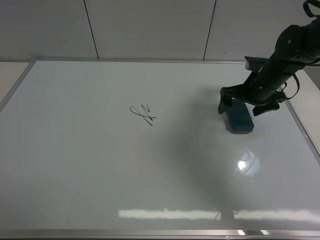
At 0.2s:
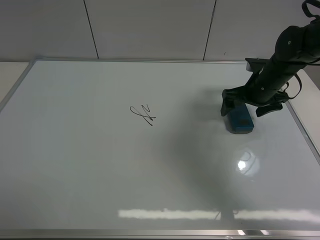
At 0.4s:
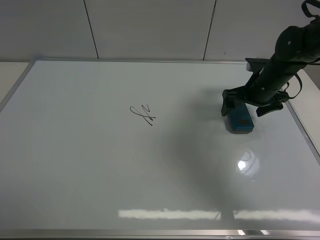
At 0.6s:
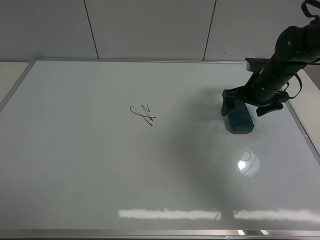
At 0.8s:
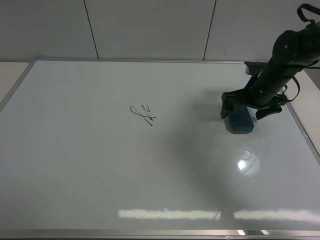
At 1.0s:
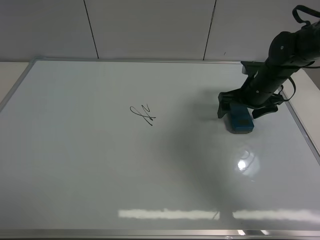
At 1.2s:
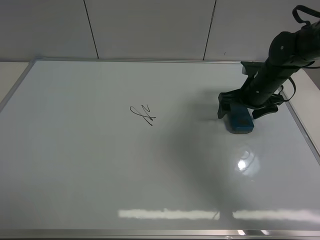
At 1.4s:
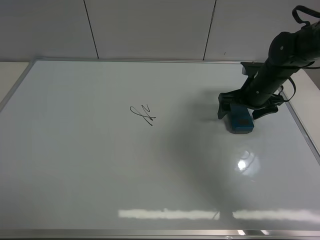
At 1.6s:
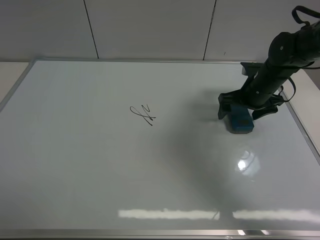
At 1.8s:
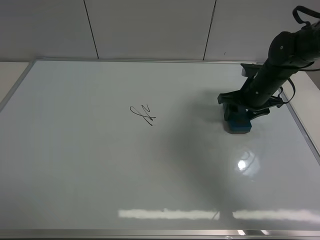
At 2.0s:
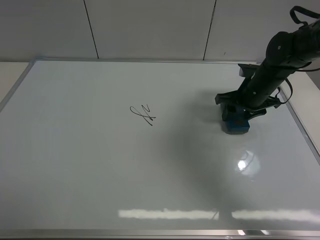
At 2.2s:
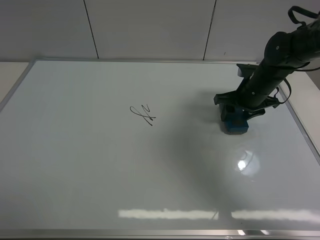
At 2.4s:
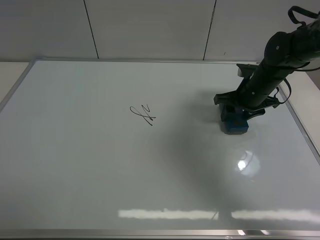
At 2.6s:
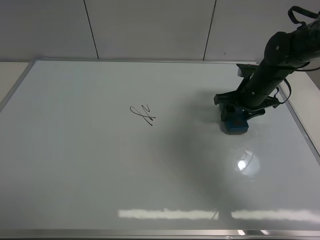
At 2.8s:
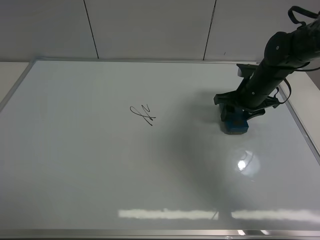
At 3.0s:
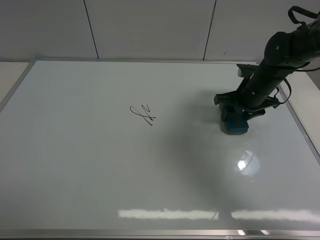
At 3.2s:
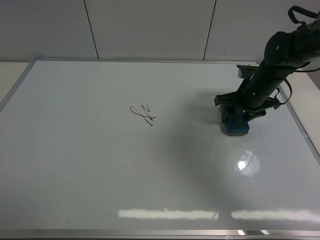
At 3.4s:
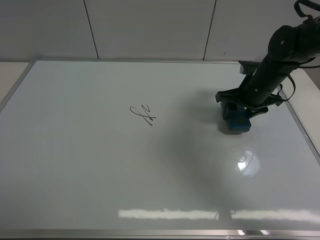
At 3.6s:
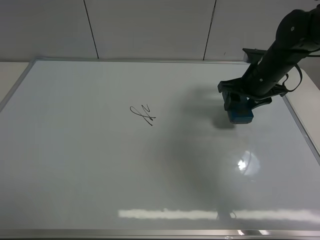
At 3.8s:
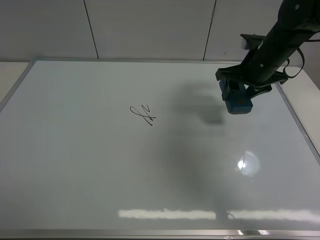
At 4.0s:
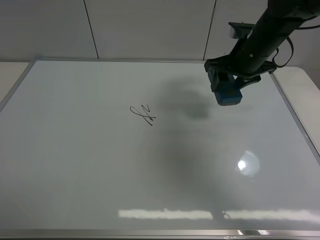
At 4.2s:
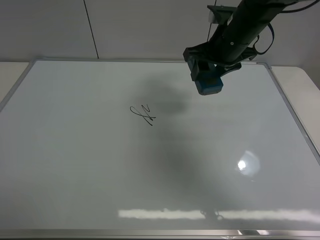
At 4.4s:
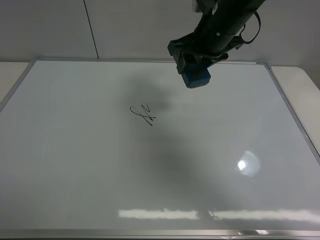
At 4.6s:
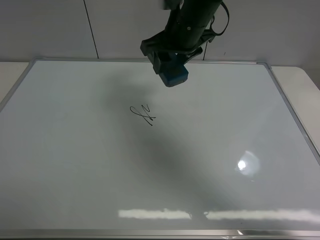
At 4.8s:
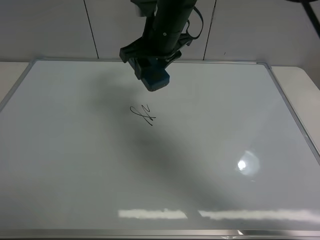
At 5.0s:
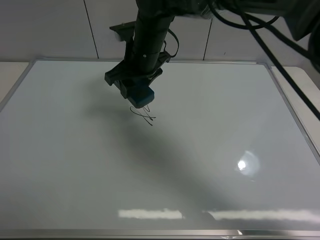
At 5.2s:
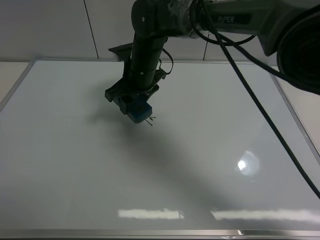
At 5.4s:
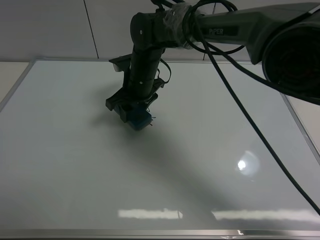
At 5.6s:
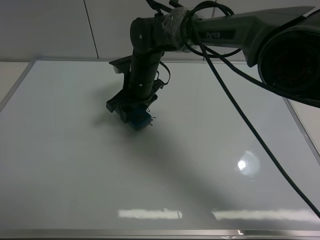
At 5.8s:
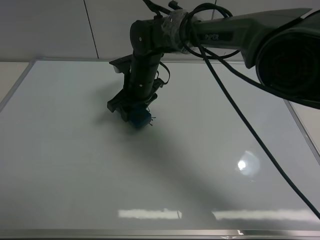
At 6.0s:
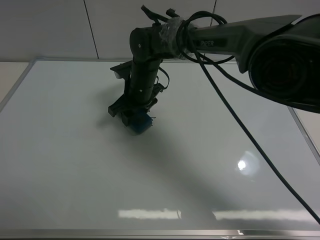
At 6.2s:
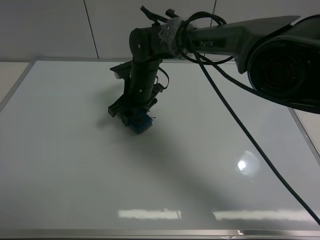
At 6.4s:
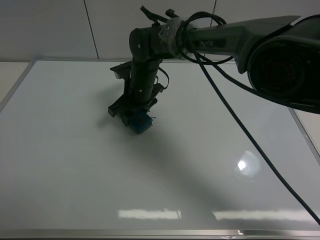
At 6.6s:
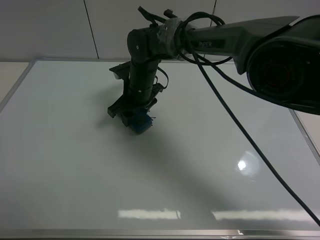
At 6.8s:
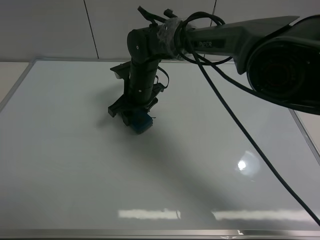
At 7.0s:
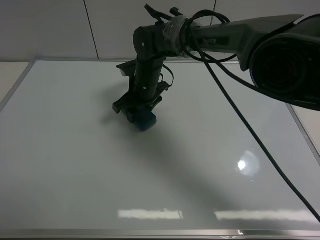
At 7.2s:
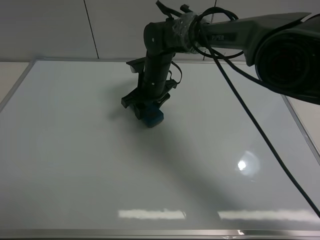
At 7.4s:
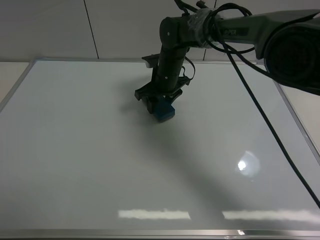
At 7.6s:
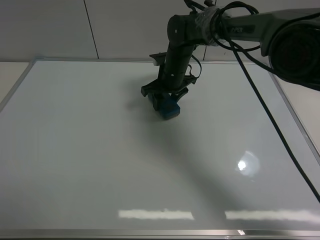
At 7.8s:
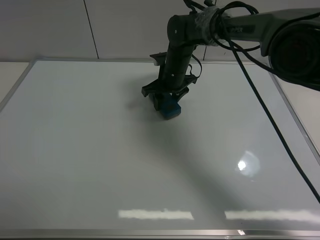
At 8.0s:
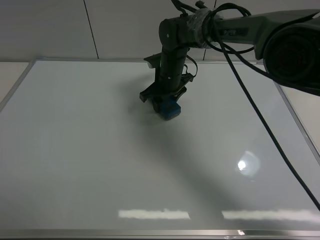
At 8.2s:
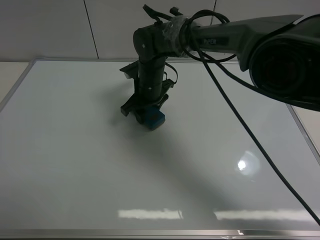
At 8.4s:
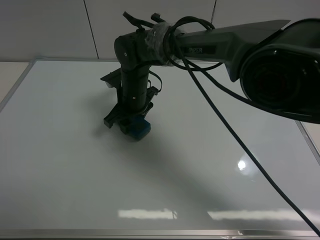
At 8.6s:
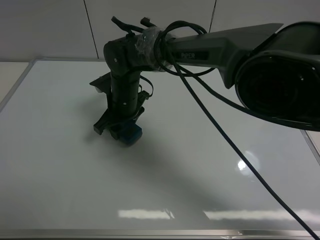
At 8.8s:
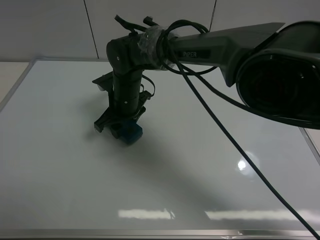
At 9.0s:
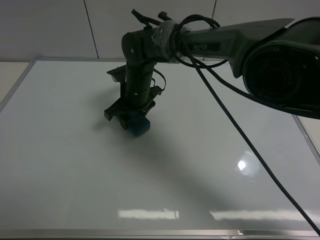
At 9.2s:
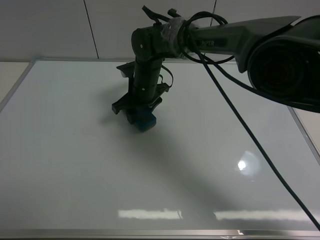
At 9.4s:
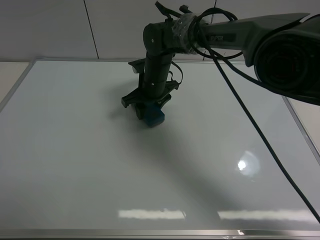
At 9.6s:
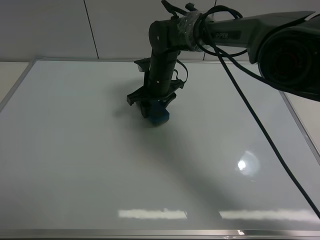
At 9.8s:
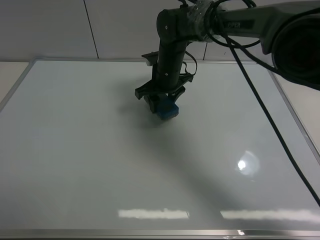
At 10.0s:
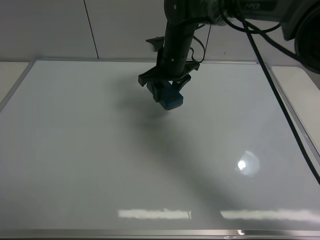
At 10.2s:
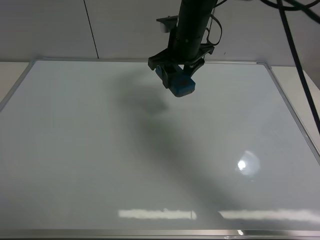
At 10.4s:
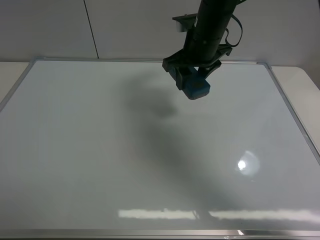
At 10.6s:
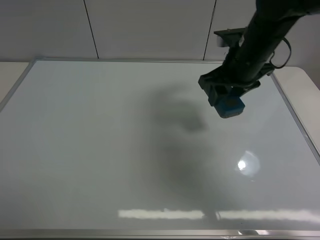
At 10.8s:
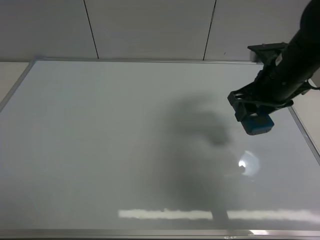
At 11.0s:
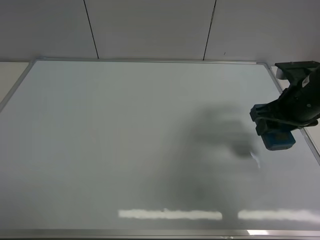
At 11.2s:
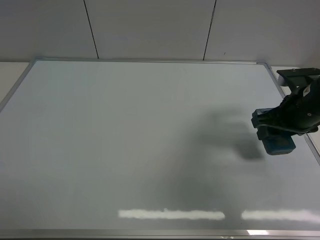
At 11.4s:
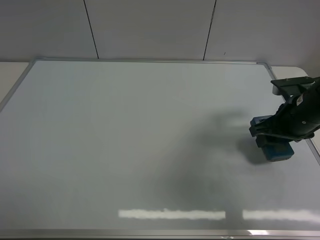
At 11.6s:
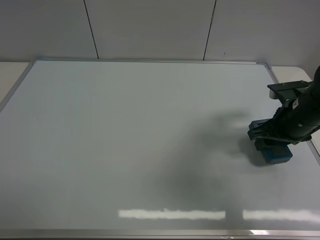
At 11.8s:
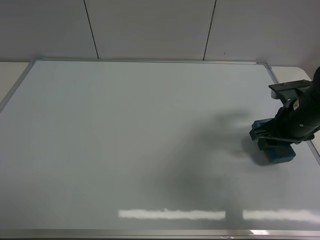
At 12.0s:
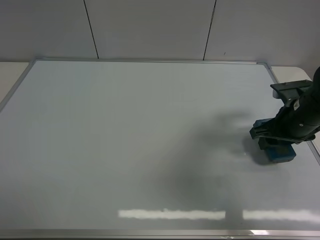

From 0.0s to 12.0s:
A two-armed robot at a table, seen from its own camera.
Task of the whole recording: use the right gripper to pick up the board eraser, wipe the notes on the whiteboard clean, and then put them back in place.
Step, from 0.0s to 3.4s: Pick up the board eraser with right gripper.
Step, from 3.6s to 9.4s: Wipe off the writing on the board with right gripper.
From 0.0s to 1.6s: Both grippers stay about where they are.
From 1.6s to 3.0s: The right gripper closes.
From 3.0s to 4.4s: The right gripper is displaced upward and to the left by about 20 cm.
From 4.4s to 6.0s: The right gripper shifts about 20 cm downward and to the left.
From 6.0s to 7.6s: The right gripper moves to the right and forward, some 10 cm.
From 7.6s to 9.0s: The right gripper moves to the left and backward, roughly 10 cm.
From 9.0s to 10.4s: The right gripper heads to the right and upward, covering roughly 20 cm.
From 10.4s to 12.0s: The right gripper is displaced to the right, backward and downward by roughly 25 cm.

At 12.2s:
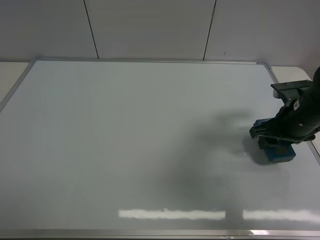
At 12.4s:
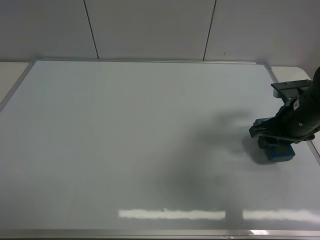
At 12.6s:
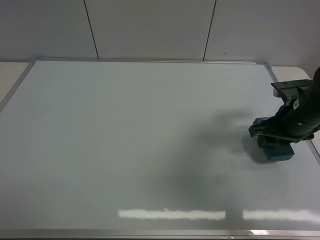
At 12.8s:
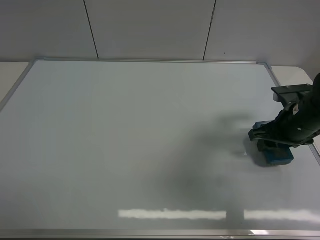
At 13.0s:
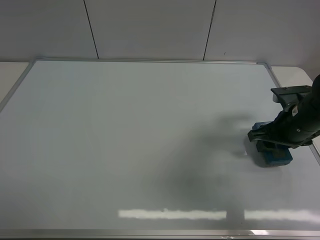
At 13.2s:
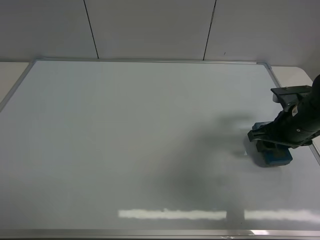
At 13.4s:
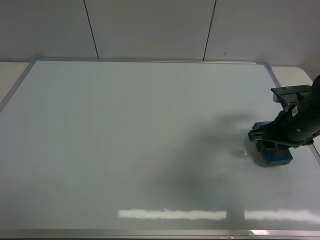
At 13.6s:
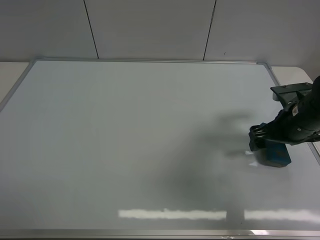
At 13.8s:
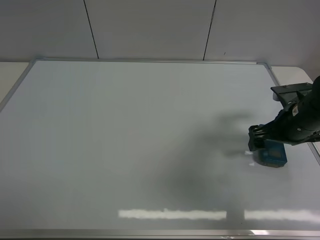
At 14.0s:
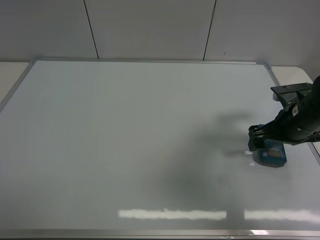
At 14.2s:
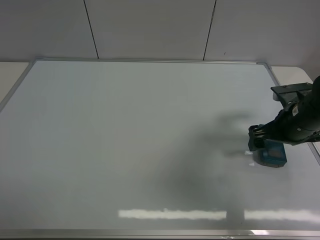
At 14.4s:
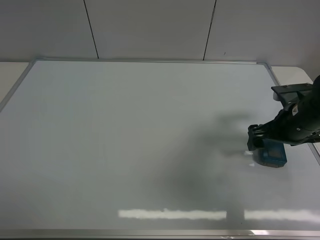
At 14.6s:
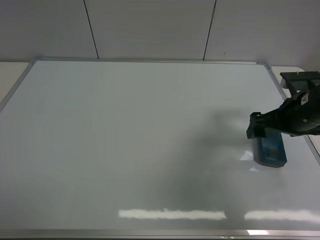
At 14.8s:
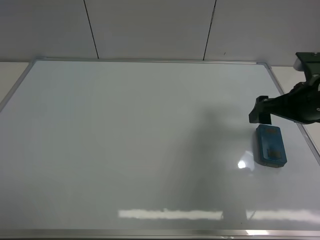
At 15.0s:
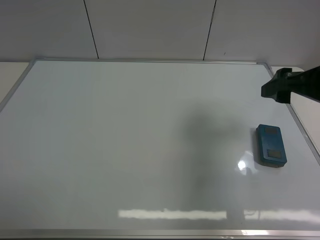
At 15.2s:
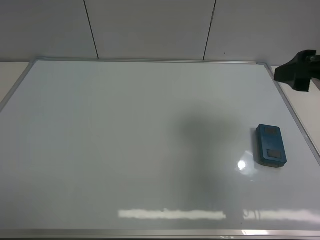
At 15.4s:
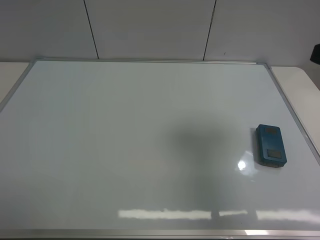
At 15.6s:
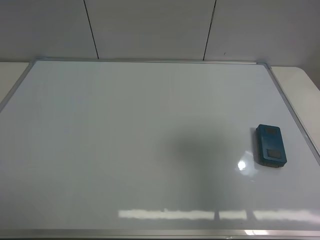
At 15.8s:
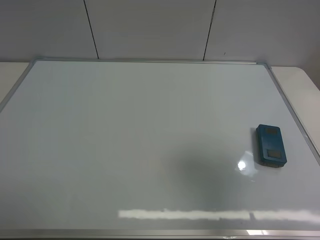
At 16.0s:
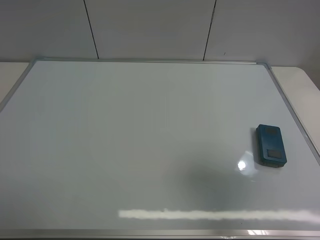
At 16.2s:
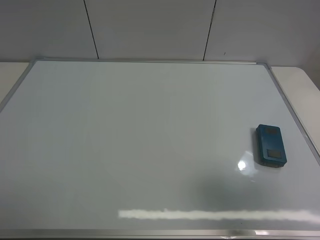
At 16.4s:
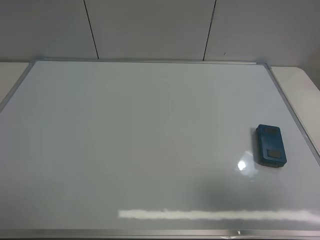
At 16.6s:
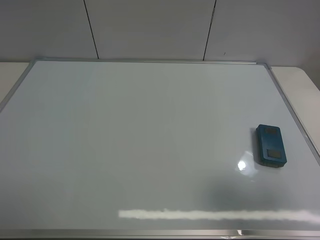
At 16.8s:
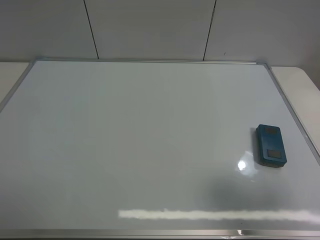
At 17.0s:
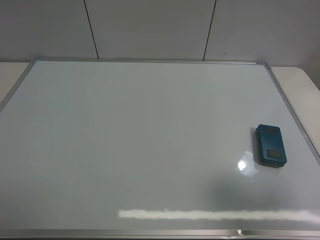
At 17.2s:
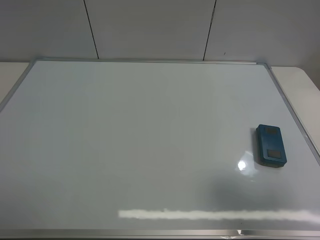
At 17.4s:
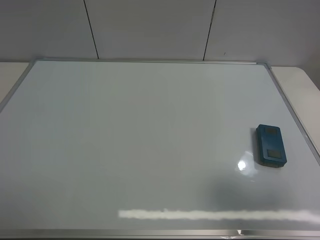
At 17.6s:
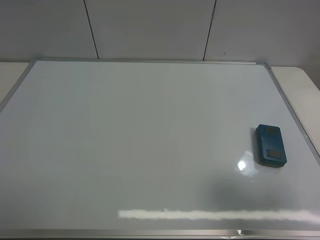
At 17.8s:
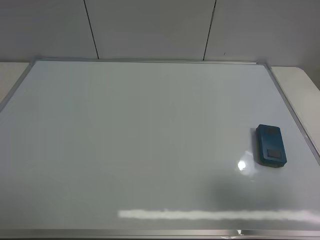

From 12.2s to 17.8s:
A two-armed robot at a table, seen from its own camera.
Task of the whole recording: use the right gripper to pick up the board eraser, wipe the notes on the whiteboard clean, and then put them back in place.
Step, from 12.2s to 14.6s: Place the board eraser on the right side of board with right gripper.
From 12.2s to 13.6s: The right gripper opens its fingers.
From 13.6s to 15.0s: The right gripper goes some 15 cm upward.
From 15.0s to 16.4s: The right gripper heads backward, covering roughly 20 cm.
